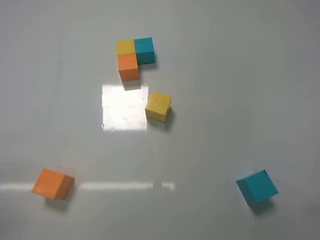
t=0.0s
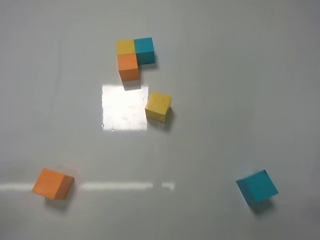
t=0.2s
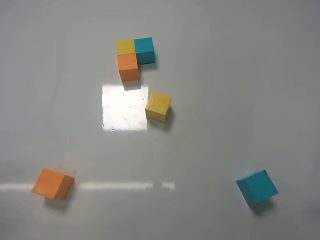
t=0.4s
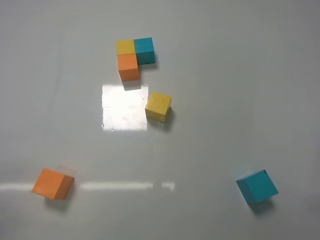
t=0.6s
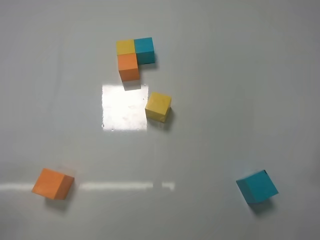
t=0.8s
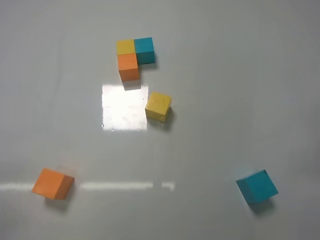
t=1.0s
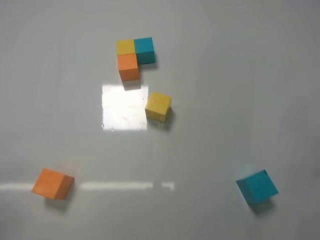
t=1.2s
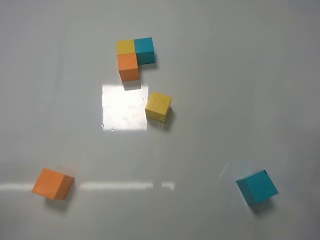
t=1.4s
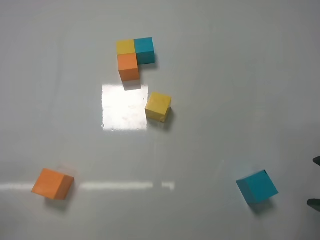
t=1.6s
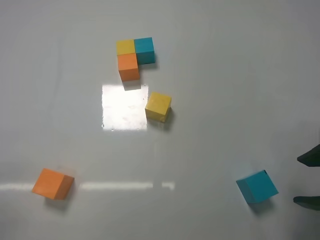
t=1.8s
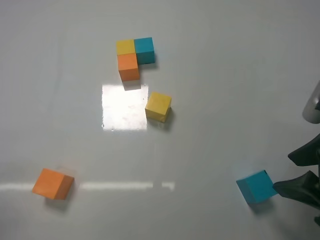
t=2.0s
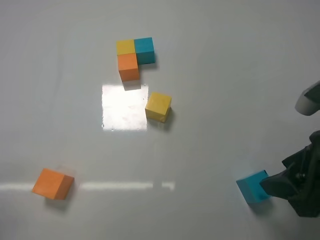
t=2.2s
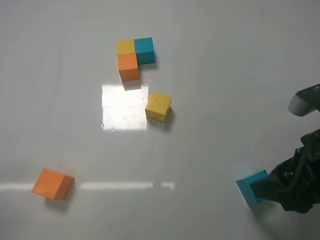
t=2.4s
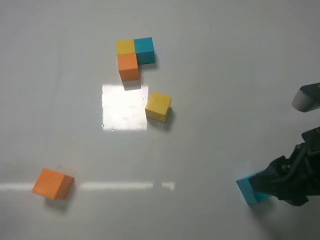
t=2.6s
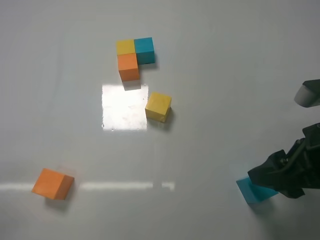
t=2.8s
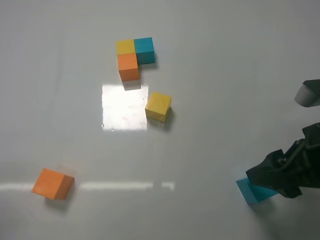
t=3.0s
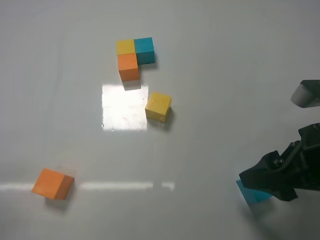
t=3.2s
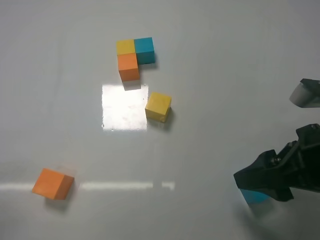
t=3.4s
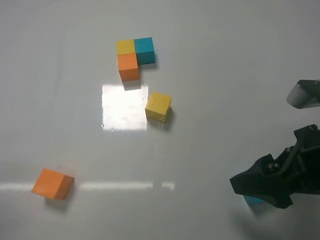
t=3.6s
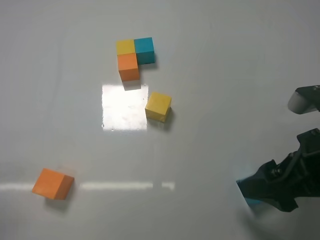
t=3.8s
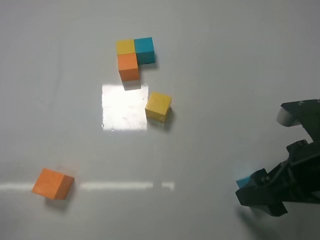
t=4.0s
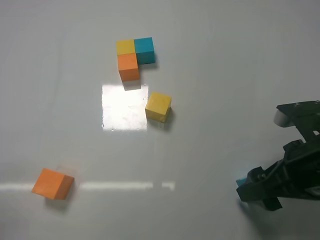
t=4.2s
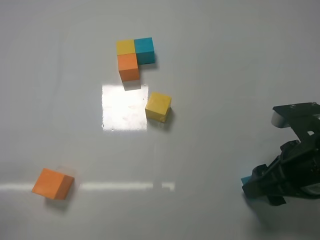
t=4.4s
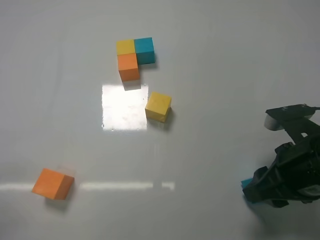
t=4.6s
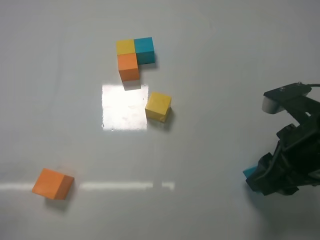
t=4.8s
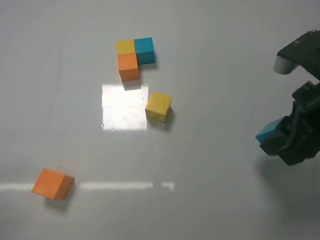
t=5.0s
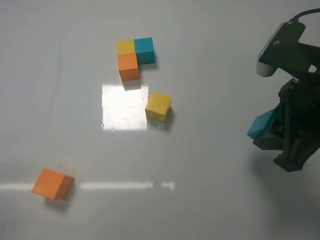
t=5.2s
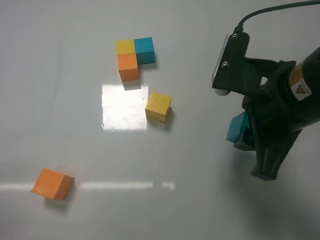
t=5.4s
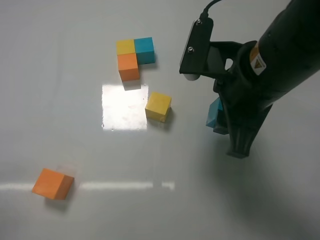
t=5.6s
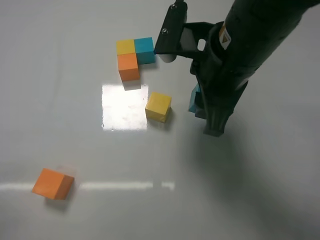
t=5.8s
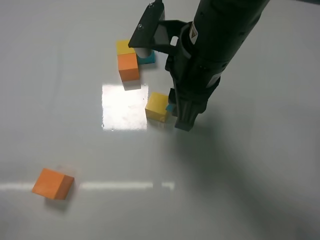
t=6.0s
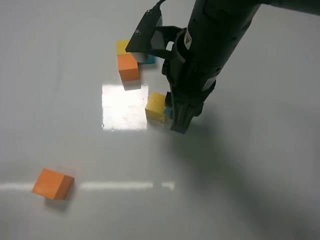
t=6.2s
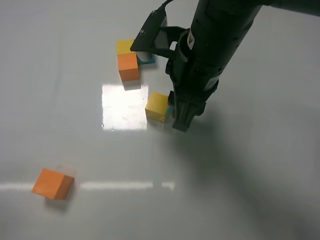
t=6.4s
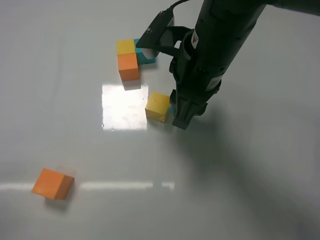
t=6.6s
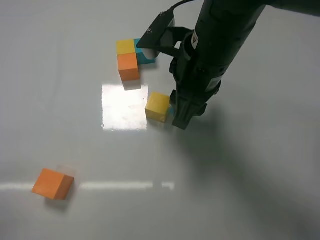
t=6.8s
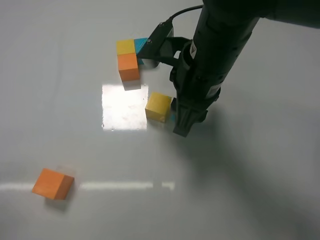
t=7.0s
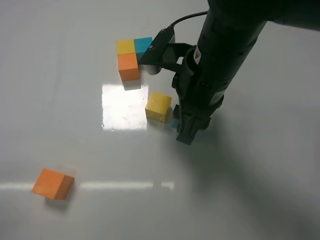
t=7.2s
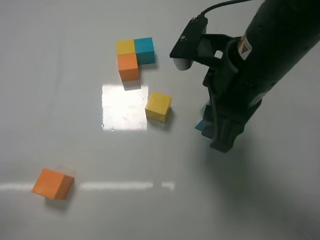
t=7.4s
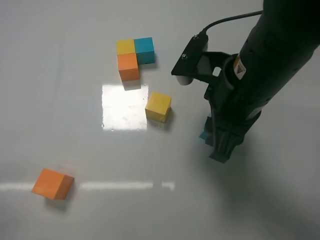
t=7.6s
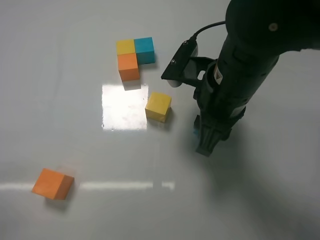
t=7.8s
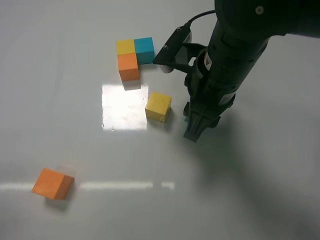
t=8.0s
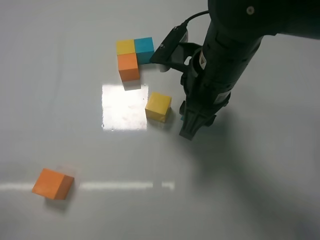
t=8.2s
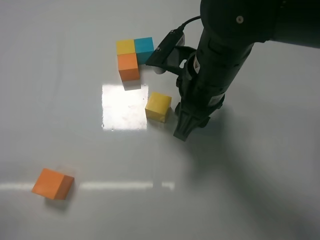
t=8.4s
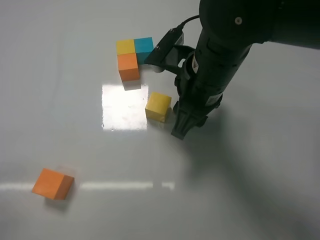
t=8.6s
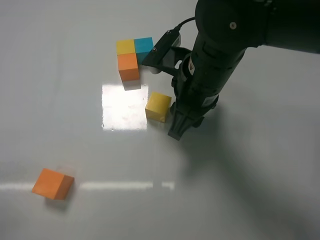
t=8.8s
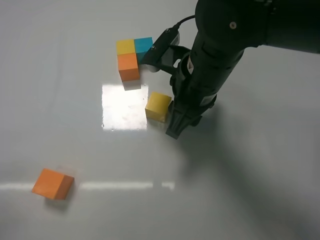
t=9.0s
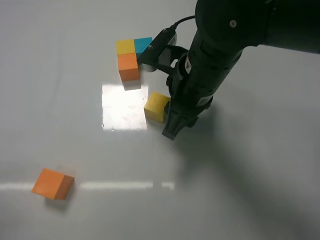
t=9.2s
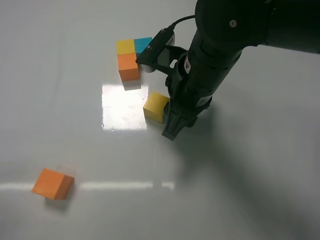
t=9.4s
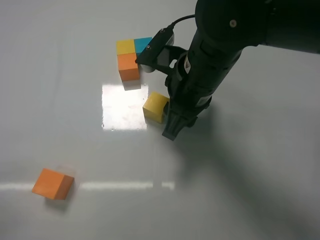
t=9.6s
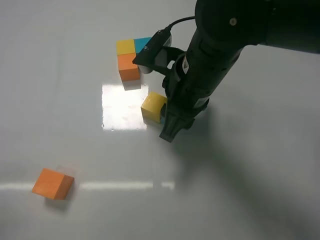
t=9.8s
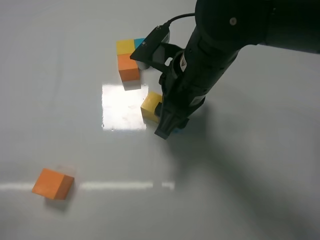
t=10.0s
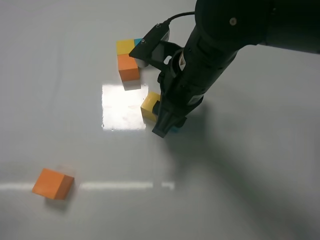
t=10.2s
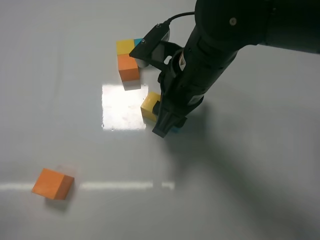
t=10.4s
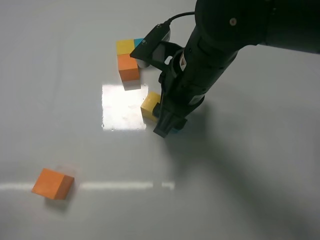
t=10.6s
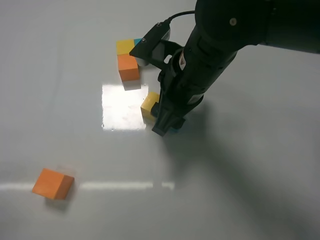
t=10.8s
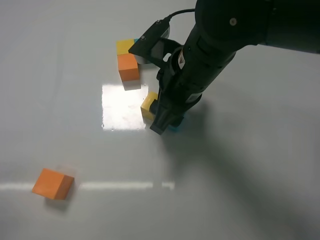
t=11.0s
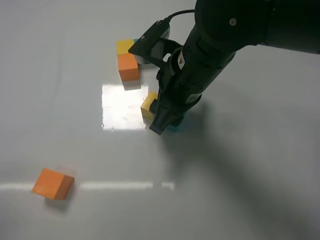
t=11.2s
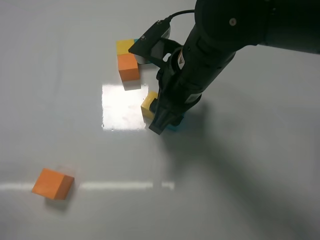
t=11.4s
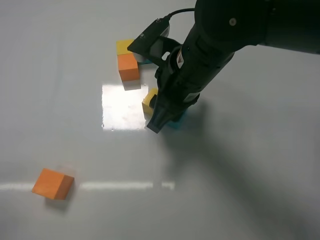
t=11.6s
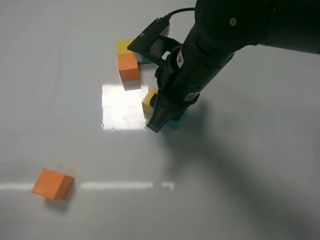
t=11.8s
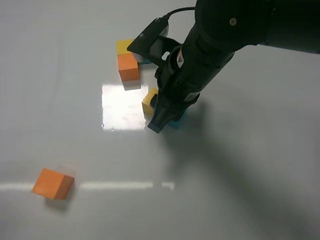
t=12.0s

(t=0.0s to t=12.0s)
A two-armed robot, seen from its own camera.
Task of the whole recording: According to the building block template in front, assemble the scattered blocks together.
Step, t=0.0s - t=4.4s: Grasp the blue block with right gripper.
Step, t=4.6s - t=10.6s: Put the blue cube on the right of the yellow cube with the right gripper.
t=1.6s - t=3.0s: The right gripper shifts by about 5 cm.
t=3.0s - t=4.4s: The right gripper closes up.
t=4.4s - t=6.0s: The right gripper travels to the left and upward by roughly 20 cm.
t=6.0s - t=7.6s: The right gripper changes place by about 5 cm.
t=7.6s - t=9.0s: The right gripper shifts by about 5 cm.
t=9.0s - t=10.4s: The grippers stay close to where they were, moving slightly.
t=10.4s - t=12.0s: Both grippers stay put.

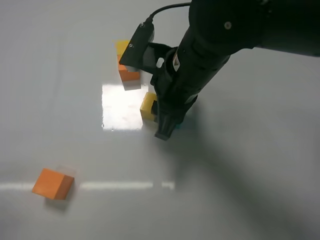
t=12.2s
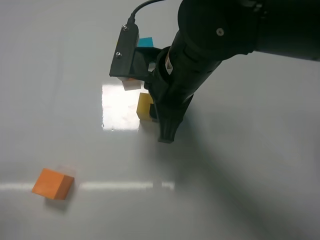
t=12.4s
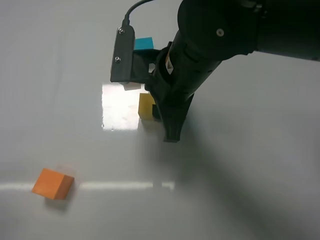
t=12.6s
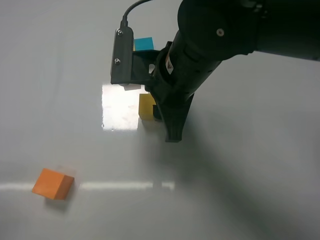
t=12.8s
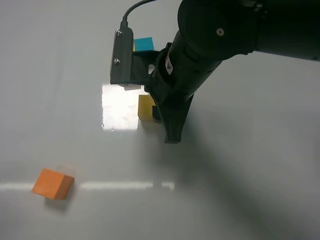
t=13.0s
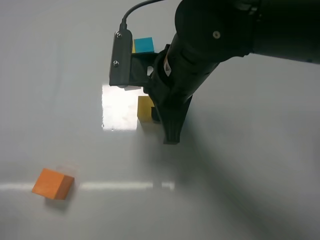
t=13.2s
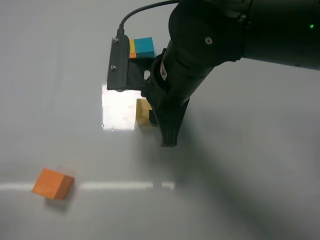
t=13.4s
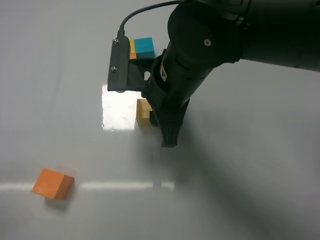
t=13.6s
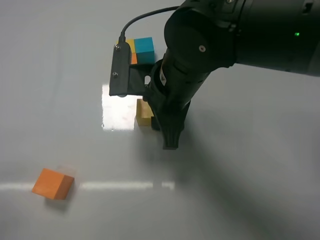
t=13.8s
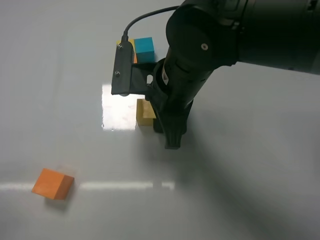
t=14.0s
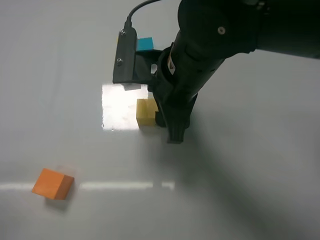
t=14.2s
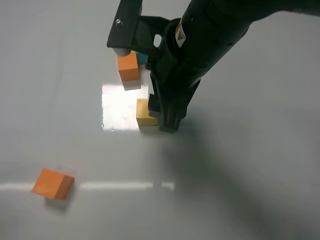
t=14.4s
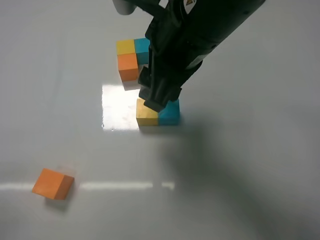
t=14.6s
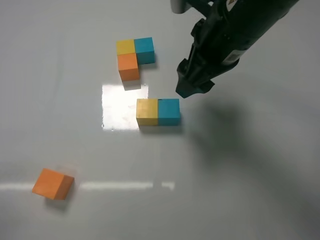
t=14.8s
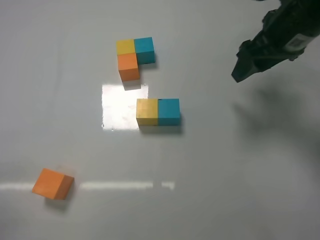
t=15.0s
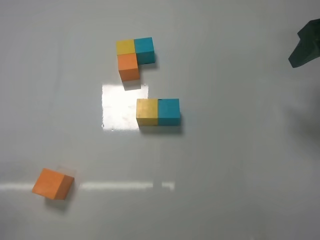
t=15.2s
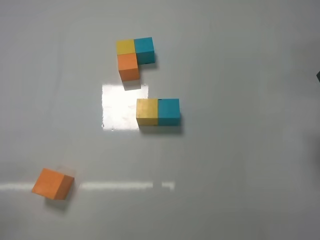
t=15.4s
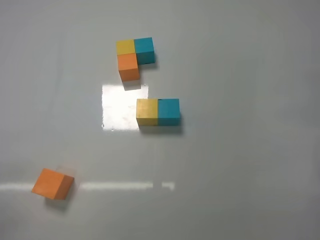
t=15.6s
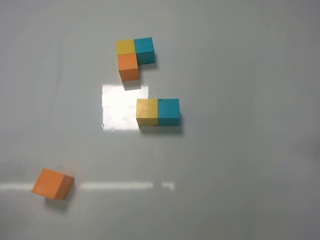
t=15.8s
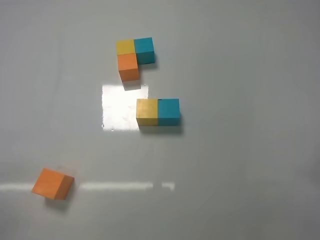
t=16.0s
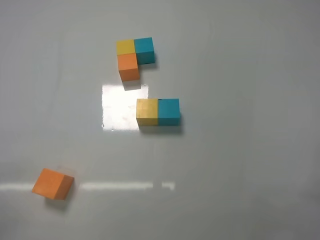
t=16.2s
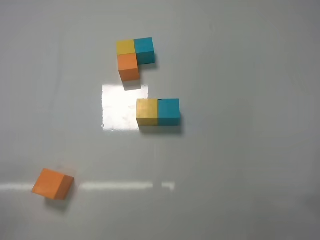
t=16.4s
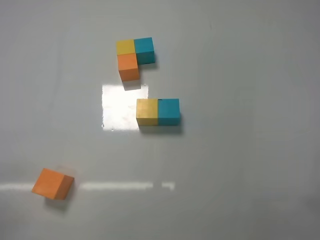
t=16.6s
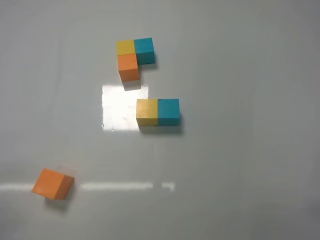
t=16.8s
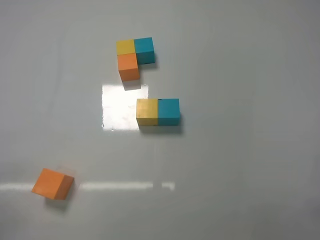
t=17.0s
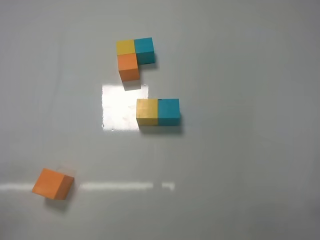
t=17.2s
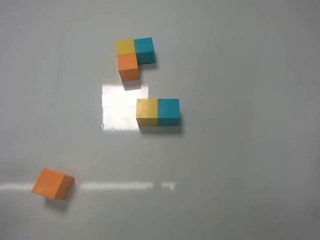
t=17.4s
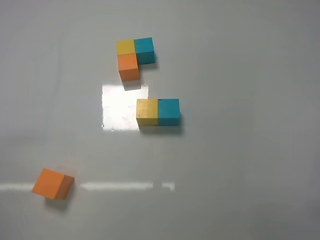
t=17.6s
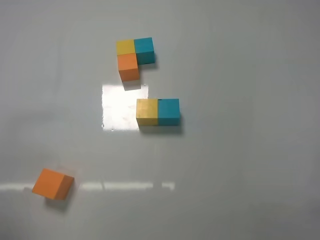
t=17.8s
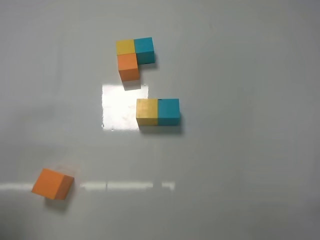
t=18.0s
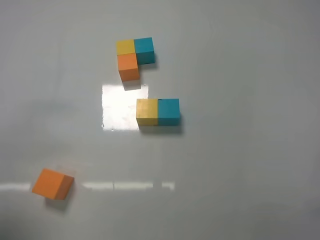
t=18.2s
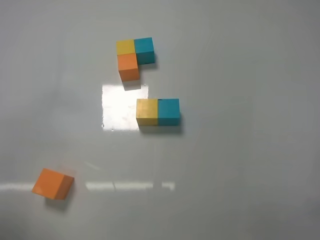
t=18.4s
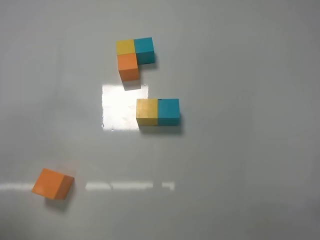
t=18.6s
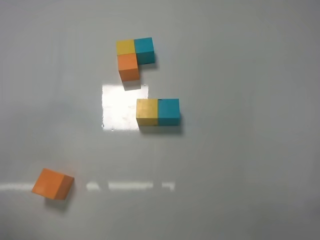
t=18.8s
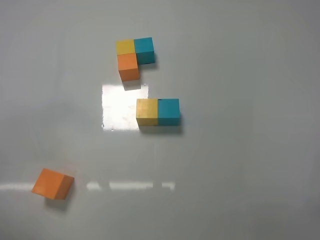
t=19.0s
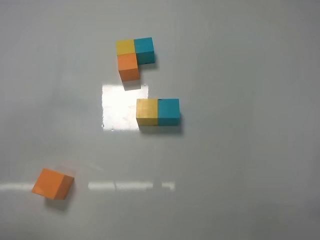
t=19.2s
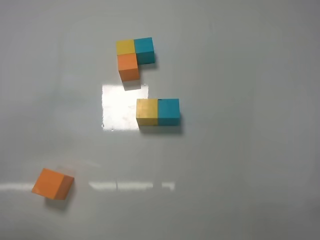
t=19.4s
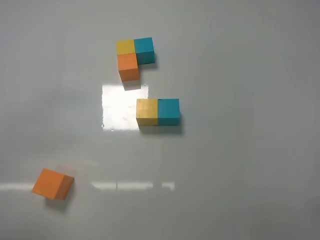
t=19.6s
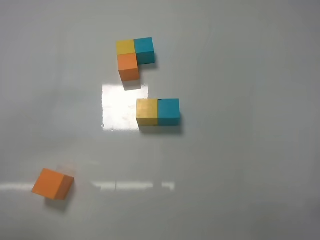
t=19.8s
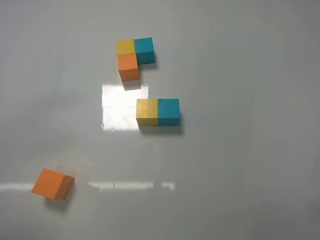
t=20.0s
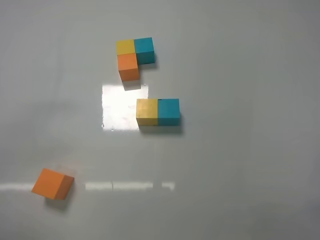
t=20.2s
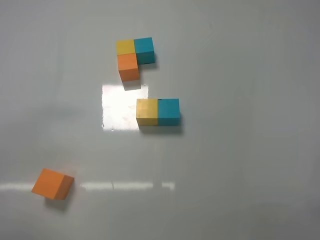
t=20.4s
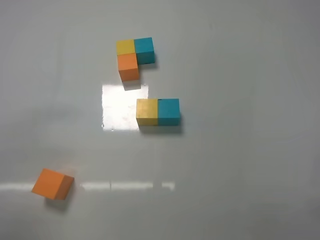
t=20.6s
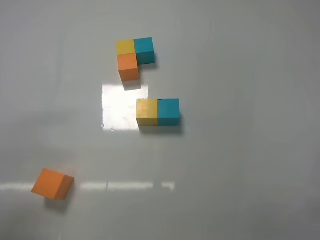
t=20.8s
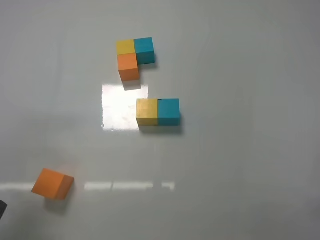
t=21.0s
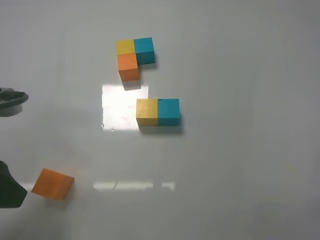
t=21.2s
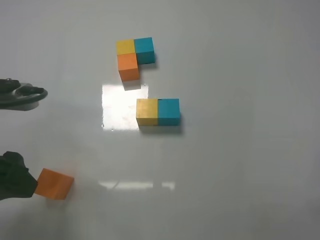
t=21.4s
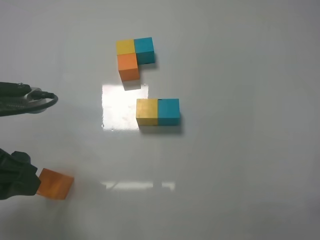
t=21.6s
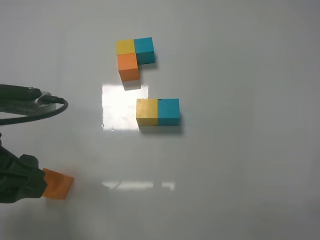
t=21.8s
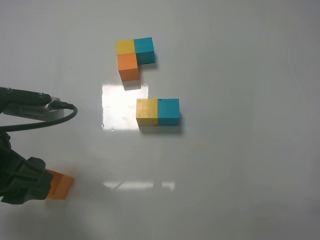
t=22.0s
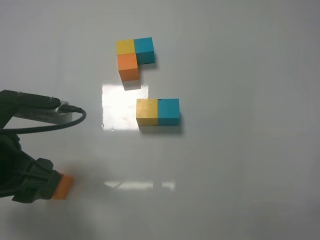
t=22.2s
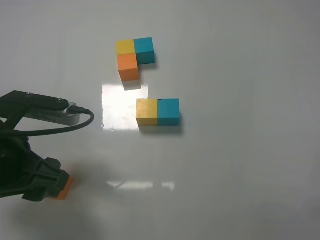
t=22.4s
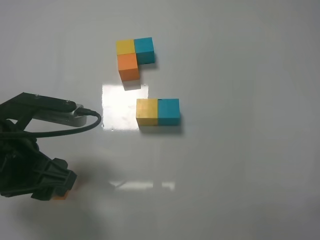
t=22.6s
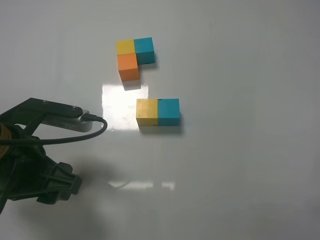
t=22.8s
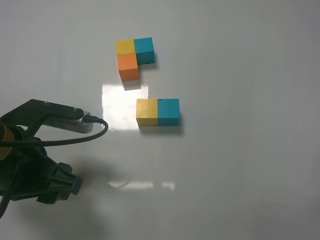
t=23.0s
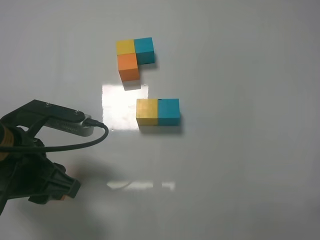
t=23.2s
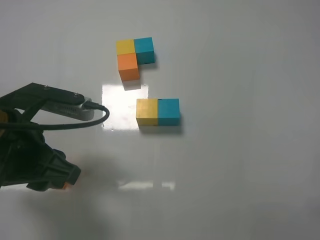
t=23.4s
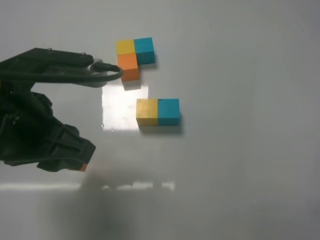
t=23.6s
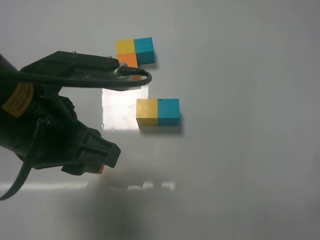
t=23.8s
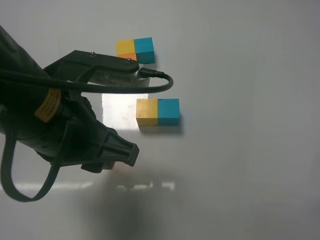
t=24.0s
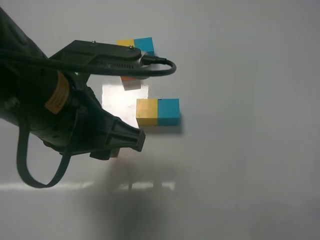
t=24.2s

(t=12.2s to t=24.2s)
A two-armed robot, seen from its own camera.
Task of the whole recording: According to the building block template in front, assemble the scattered blocks together.
Step, t=12.2s - t=14.2s: Put the yellow cube and blue cube in the center of the table with the right gripper.
Step, t=14.4s - t=23.2s: Grasp the orange block with left gripper.
t=12.2s - t=13.8s: There are only small adjustments of the grippers.
t=13.8s - t=15.2s: The right gripper moves to the right and upward, roughly 30 cm.
t=15.2s - t=16.6s: The right gripper shifts roughly 30 cm backward and downward.
t=16.6s - t=18.2s: The left gripper goes approximately 15 cm upward and forward, and closes up.
t=19.8s - t=21.2s: The left gripper moves downward, some 5 cm, and opens.
t=21.2s - t=22.6s: The left gripper travels to the right by approximately 5 cm.
t=22.6s - t=24.2s: The left gripper travels to the right and upward by about 10 cm, and closes up.
